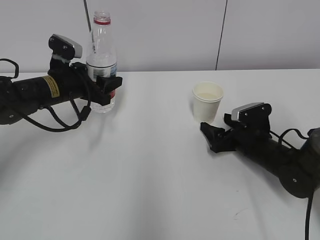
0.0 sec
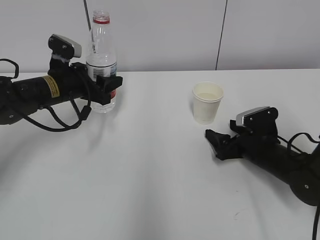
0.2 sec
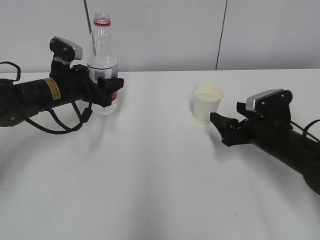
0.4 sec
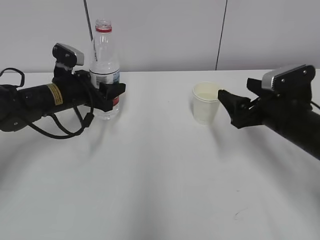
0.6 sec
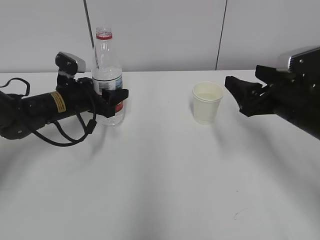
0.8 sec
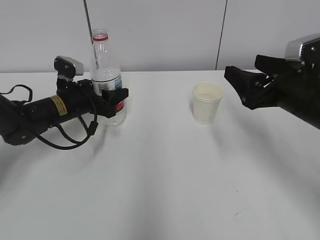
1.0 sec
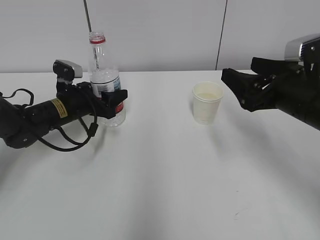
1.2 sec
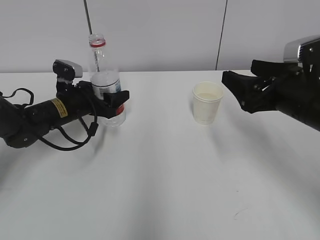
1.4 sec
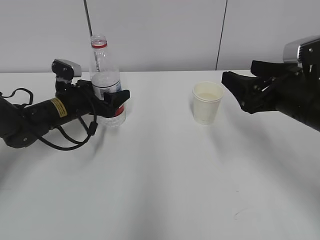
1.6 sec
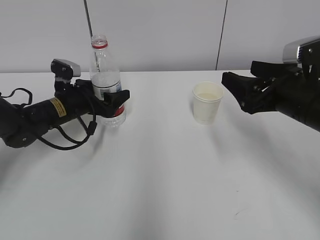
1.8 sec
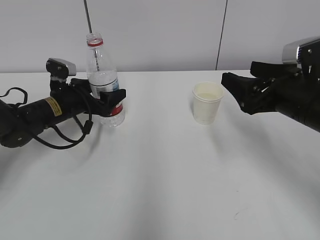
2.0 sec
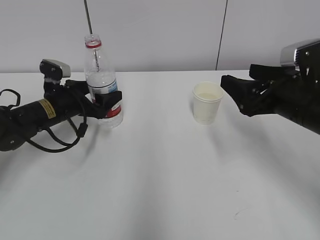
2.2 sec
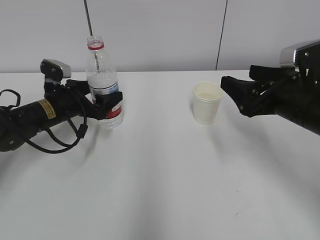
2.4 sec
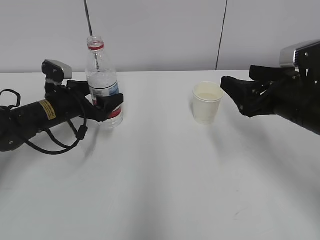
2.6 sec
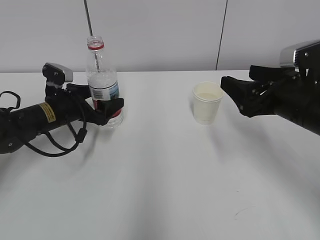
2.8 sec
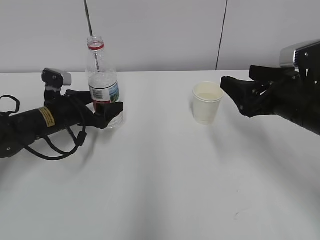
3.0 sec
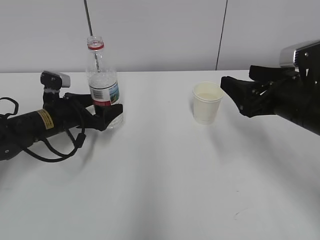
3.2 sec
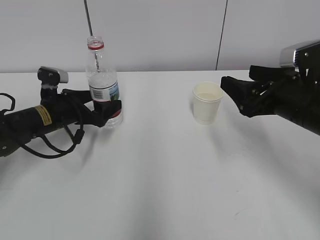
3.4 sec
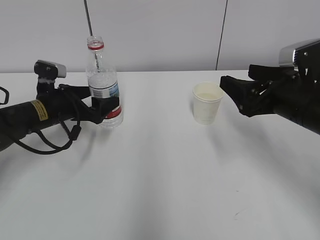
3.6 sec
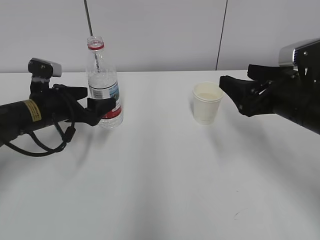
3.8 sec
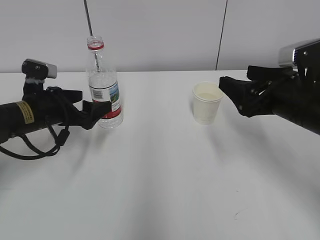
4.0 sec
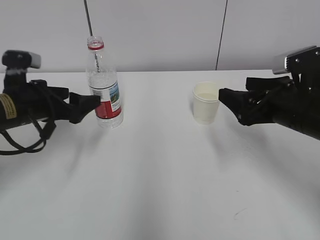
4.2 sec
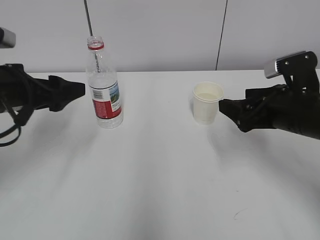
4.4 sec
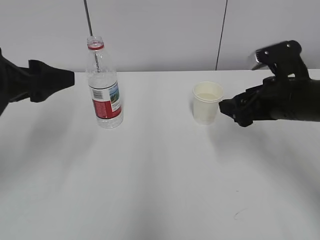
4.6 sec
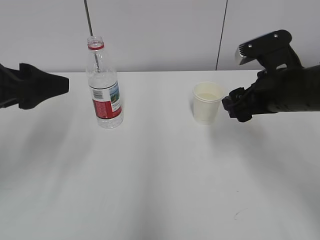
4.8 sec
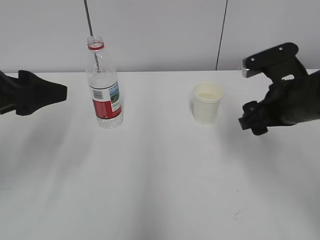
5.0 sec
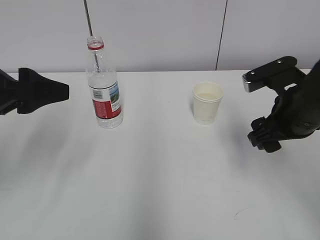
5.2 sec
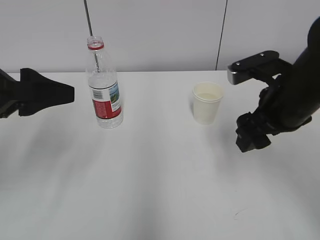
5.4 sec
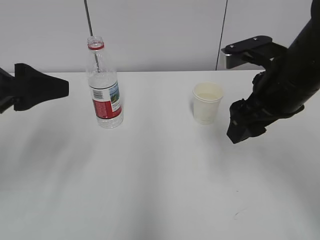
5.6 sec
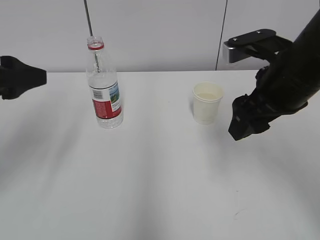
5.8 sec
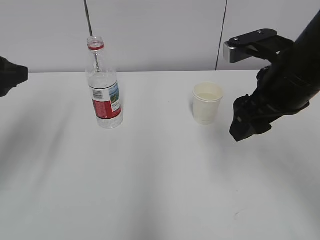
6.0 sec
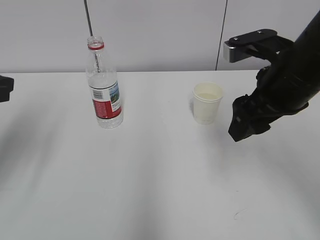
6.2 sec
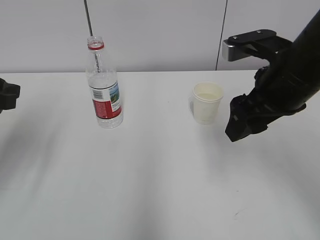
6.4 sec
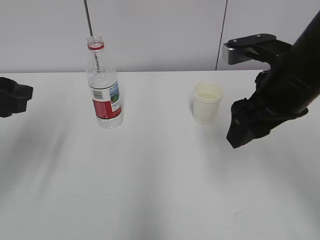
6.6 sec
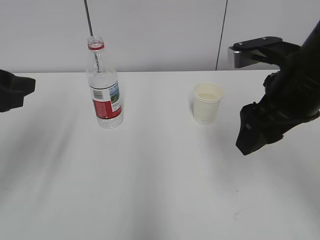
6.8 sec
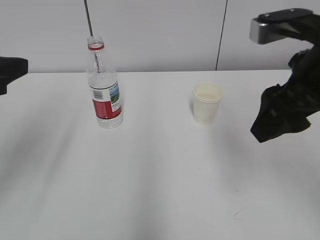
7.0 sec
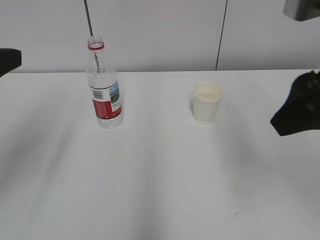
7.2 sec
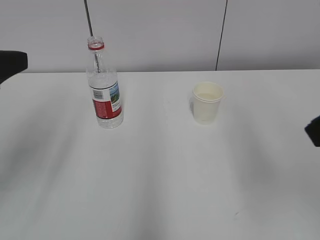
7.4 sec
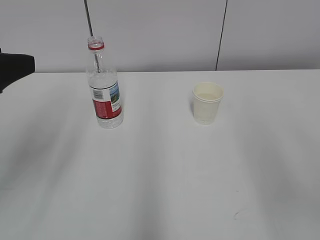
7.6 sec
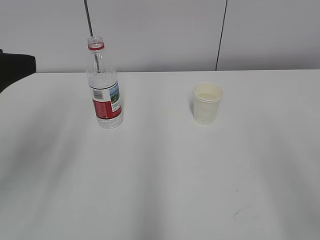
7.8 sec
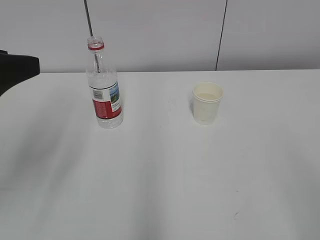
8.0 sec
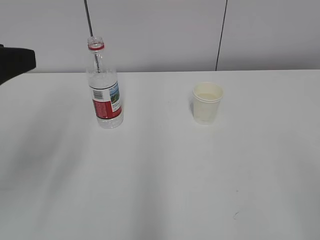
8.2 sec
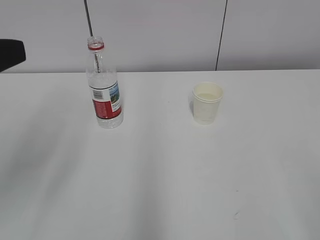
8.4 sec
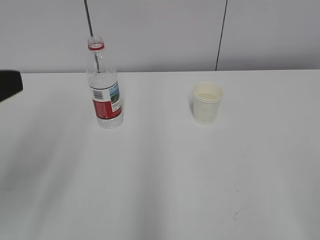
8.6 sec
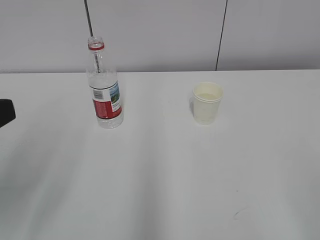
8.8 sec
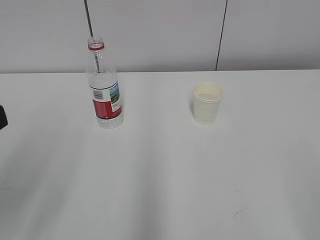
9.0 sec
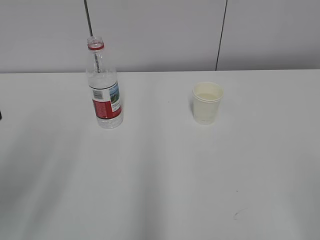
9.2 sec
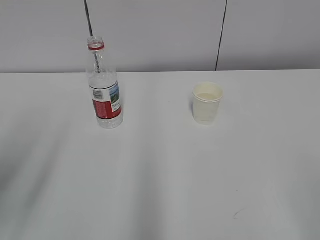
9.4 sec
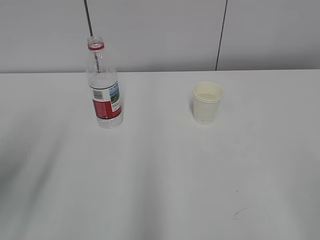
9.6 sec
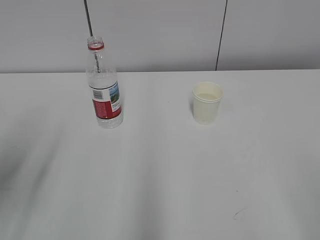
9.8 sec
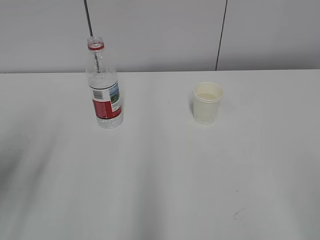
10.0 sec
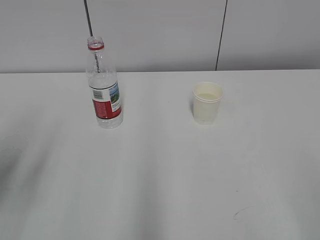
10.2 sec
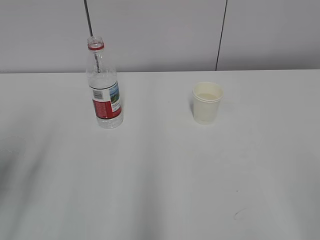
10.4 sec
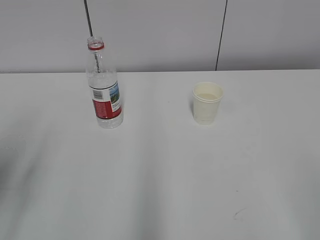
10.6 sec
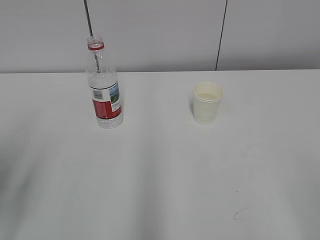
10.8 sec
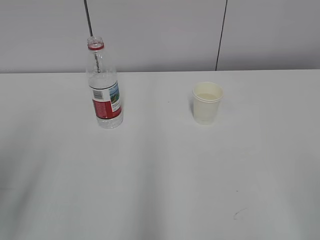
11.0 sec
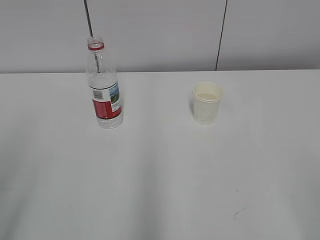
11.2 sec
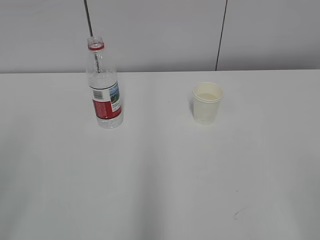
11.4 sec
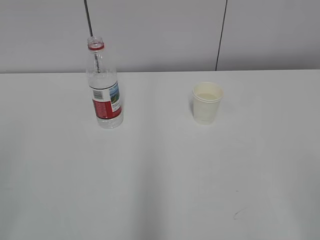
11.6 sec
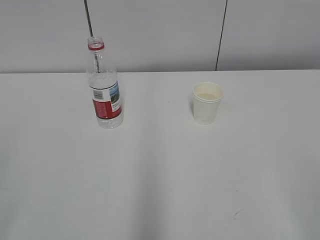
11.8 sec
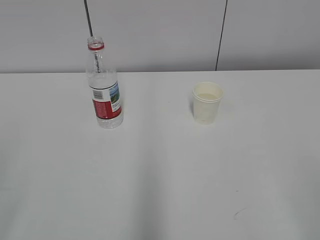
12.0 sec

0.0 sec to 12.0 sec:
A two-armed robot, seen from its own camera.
0.0 sec to 1.6 sec: The right gripper heads upward and backward, covering roughly 20 cm, while the left gripper travels downward by roughly 5 cm, and opens up.
1.6 sec to 3.0 sec: The left gripper opens its fingers.
3.0 sec to 4.4 sec: The left gripper heads upward and backward, covering about 15 cm.
4.4 sec to 6.0 sec: The left gripper heads upward, covering about 5 cm, and closes; the right gripper heads upward, covering roughly 10 cm.
6.0 sec to 7.6 sec: The left gripper heads backward, covering approximately 5 cm; the right gripper moves backward and upward, some 20 cm.
7.6 sec to 9.0 sec: The left gripper shifts some 10 cm backward. Meanwhile the right gripper goes some 15 cm backward and downward.
10.4 sec to 12.0 sec: The left gripper goes about 15 cm backward, and opens up.

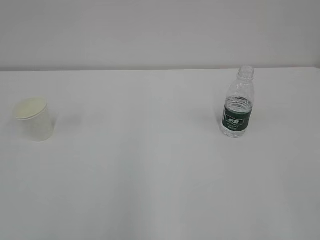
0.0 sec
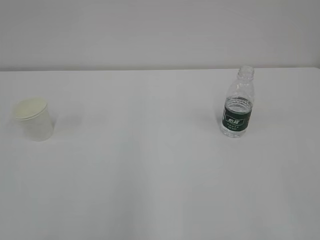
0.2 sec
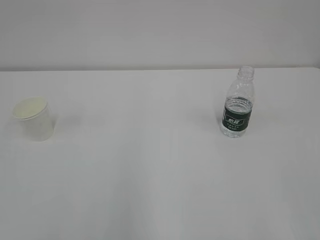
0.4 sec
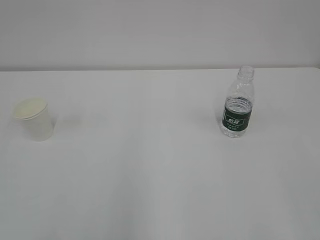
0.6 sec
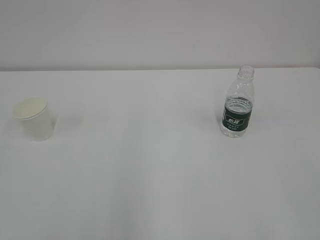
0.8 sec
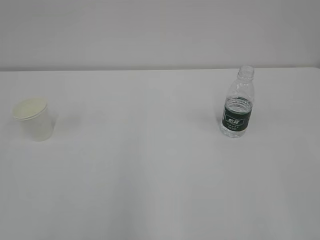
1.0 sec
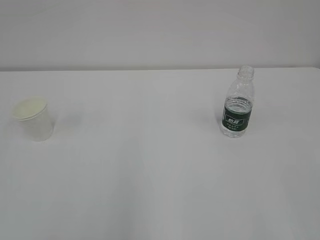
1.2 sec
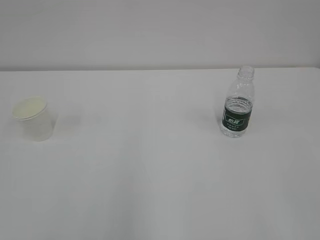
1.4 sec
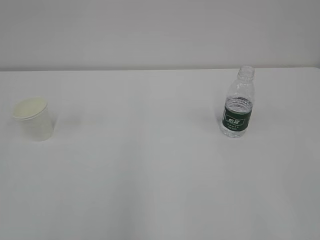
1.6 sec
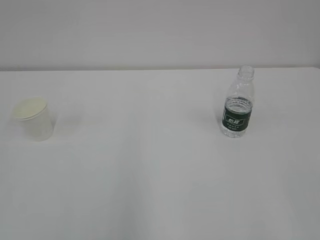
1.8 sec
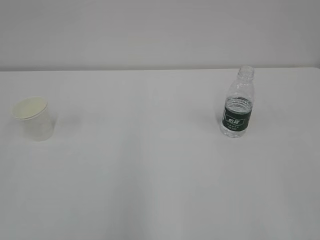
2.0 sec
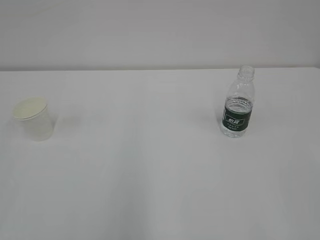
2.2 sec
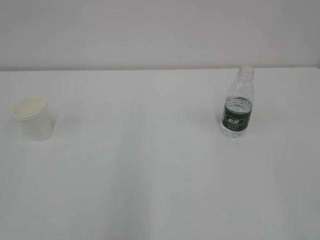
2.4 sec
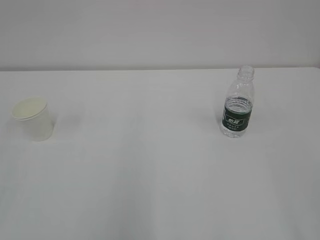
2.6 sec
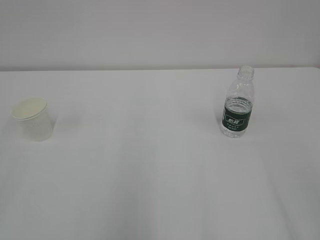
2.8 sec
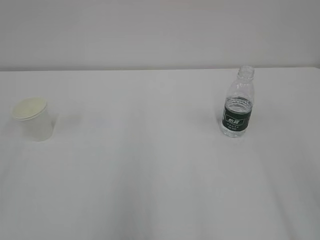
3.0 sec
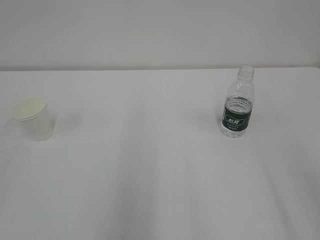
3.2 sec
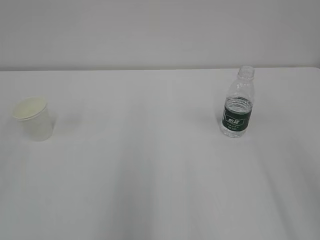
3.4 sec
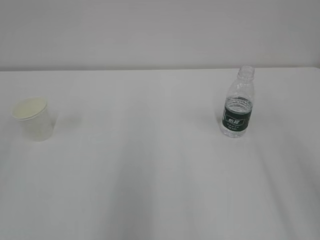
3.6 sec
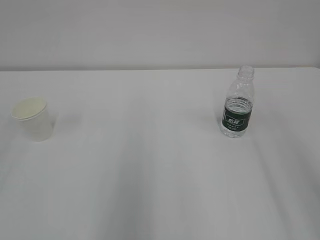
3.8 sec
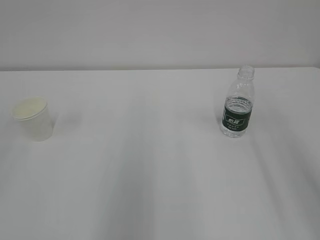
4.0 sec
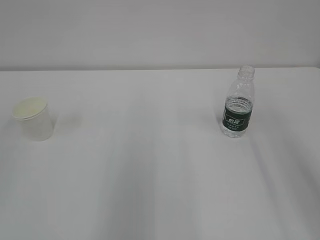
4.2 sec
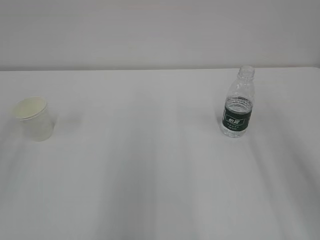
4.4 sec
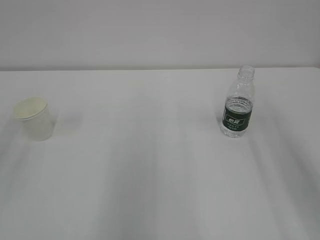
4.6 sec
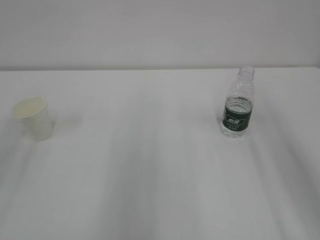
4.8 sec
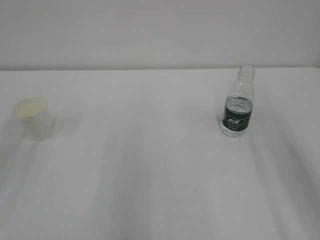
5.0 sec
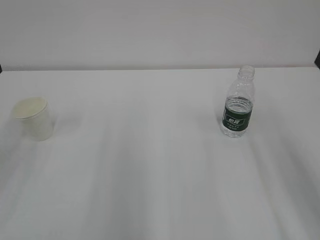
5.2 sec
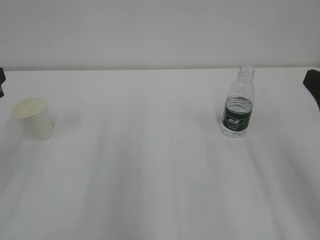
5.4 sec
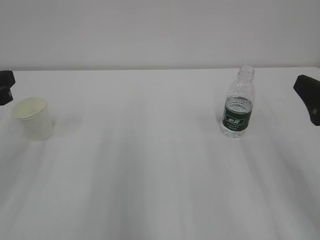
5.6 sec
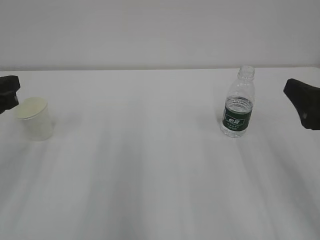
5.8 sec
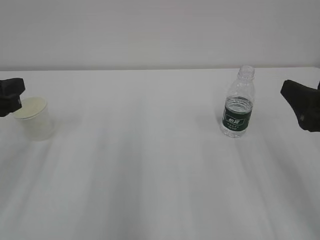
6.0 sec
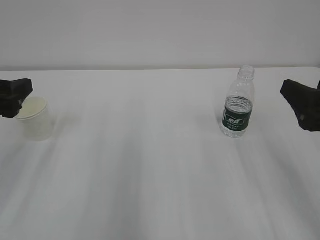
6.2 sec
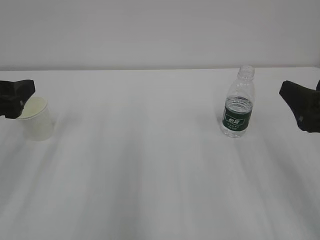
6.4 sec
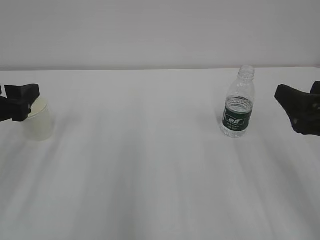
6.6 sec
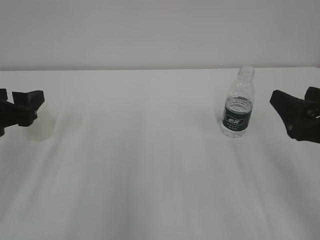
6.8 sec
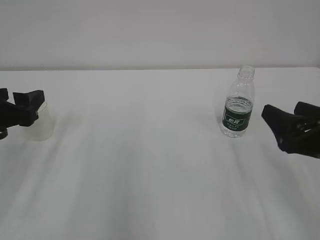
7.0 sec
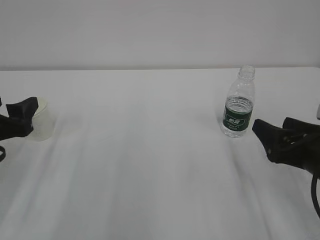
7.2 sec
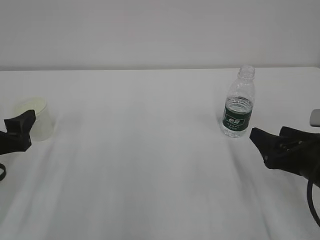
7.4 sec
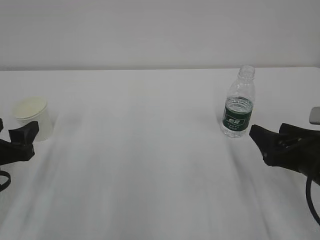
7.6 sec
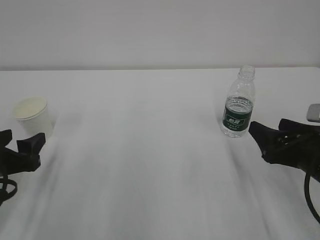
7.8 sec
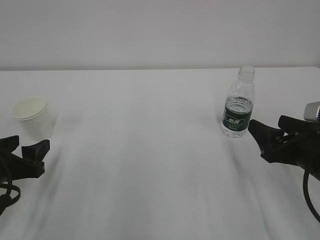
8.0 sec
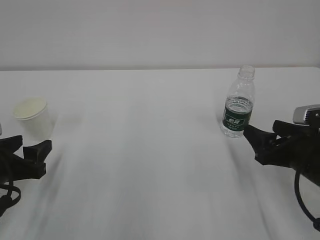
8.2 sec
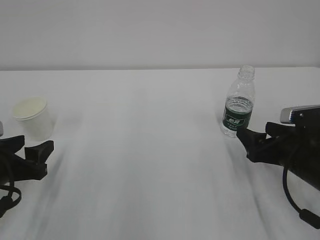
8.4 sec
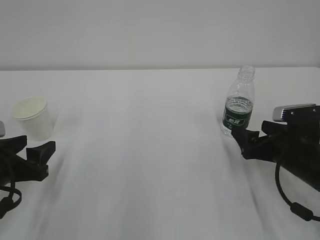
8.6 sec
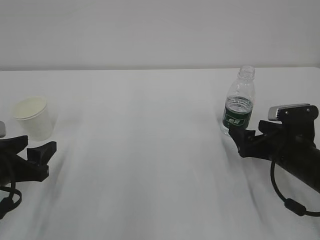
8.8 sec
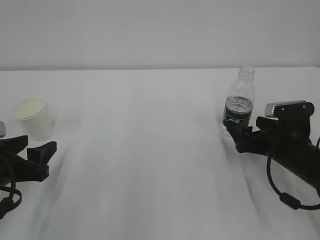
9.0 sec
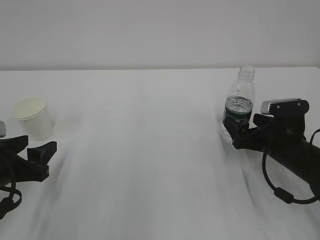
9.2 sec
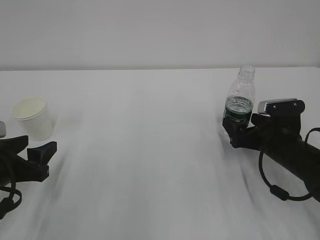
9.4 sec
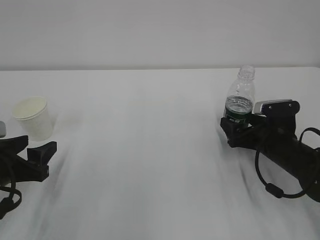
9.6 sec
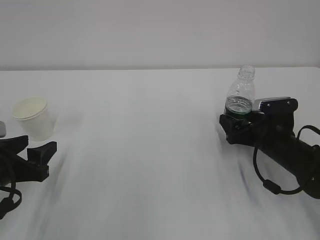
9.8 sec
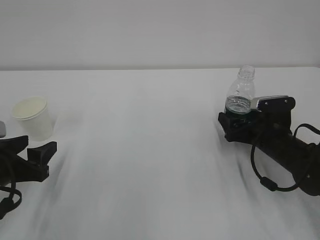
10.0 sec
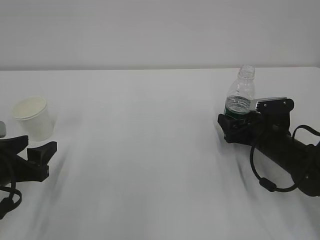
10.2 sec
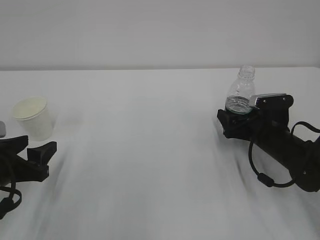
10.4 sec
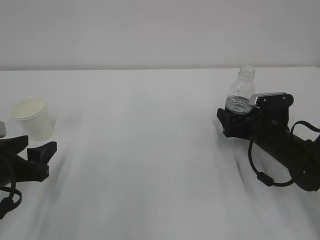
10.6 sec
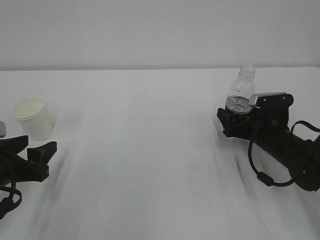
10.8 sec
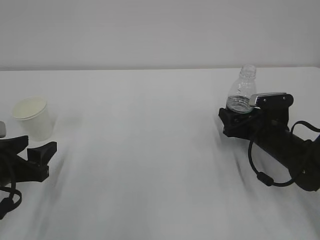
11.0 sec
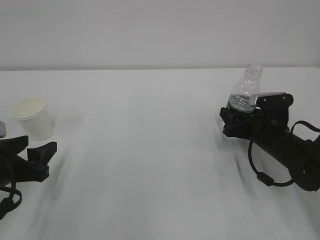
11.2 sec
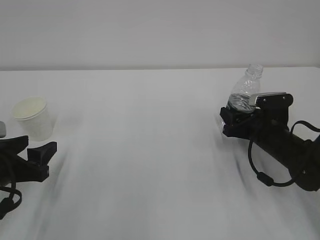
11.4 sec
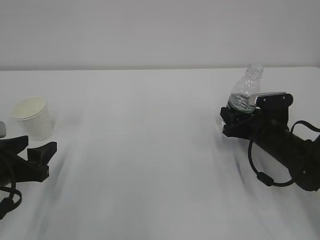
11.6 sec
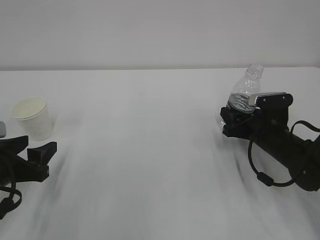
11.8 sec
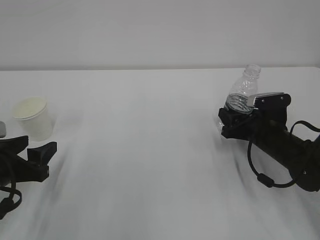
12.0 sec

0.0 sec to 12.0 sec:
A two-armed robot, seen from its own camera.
4.4 sec to 6.0 sec: The left gripper heads downward and forward, covering roughly 10 cm. Meanwhile the right gripper goes about 10 cm downward.
6.0 sec to 7.6 sec: Both grippers move downward, approximately 10 cm. The left gripper opens its fingers.
7.6 sec to 9.0 sec: The right gripper shifts some 10 cm forward.
9.0 sec to 10.4 sec: The right gripper moves forward, roughly 5 cm.
10.4 sec to 12.0 sec: The right gripper closes its fingers.
